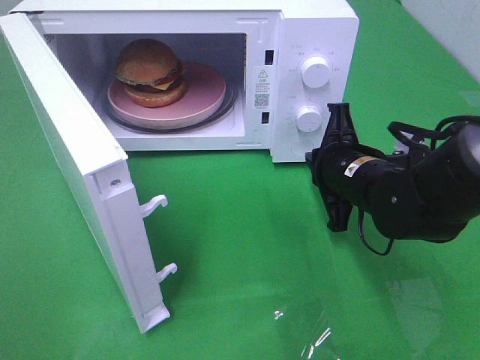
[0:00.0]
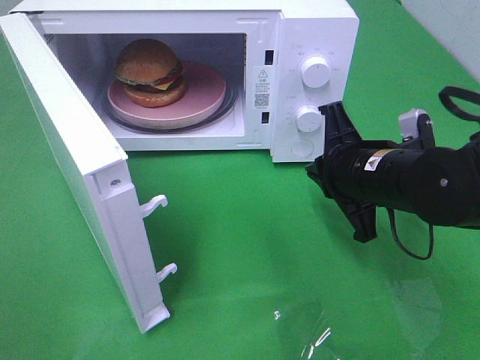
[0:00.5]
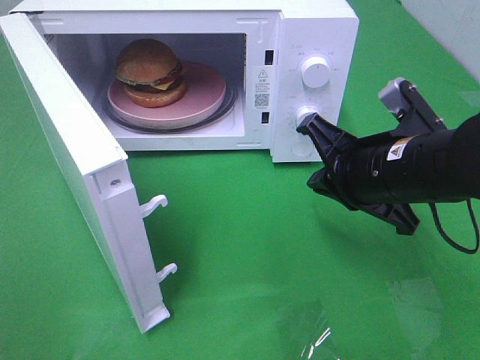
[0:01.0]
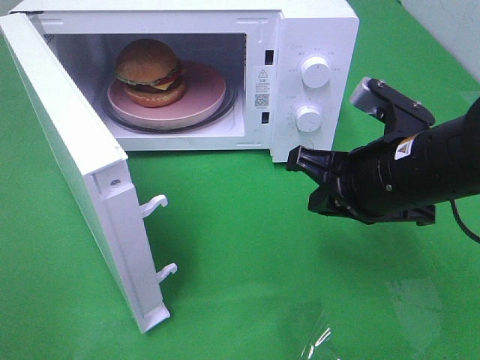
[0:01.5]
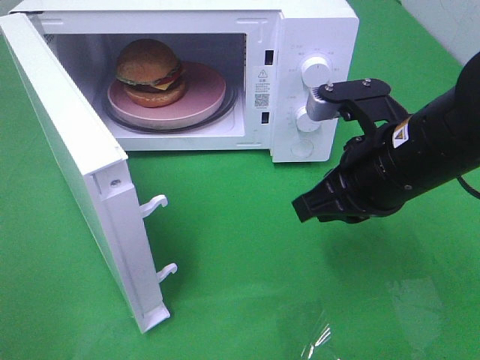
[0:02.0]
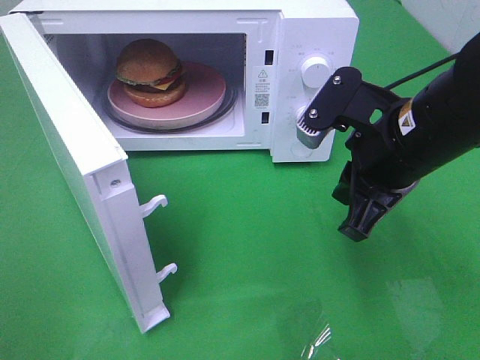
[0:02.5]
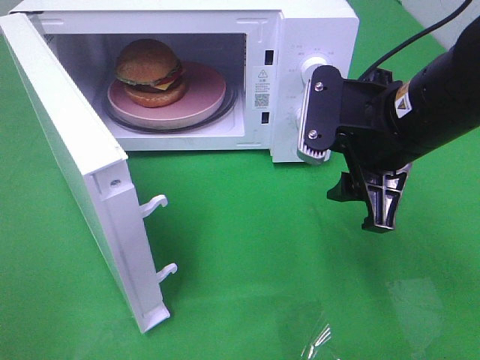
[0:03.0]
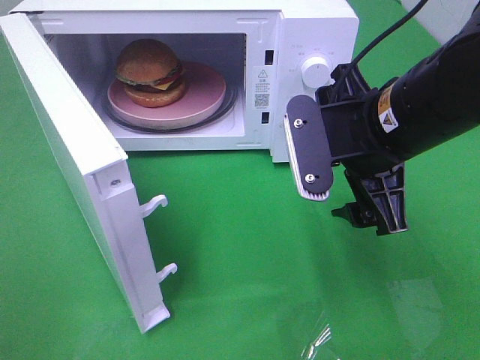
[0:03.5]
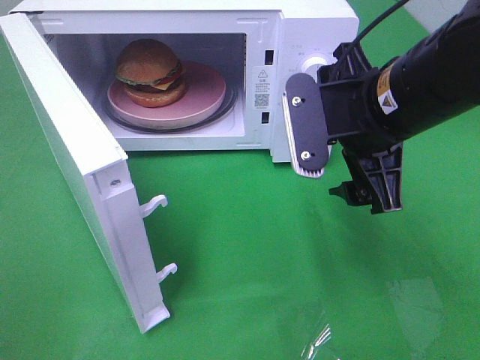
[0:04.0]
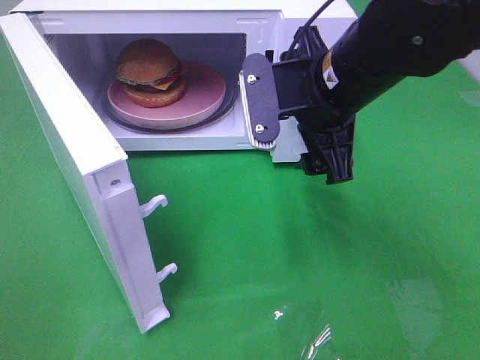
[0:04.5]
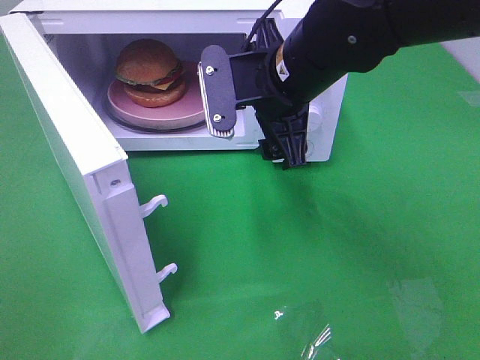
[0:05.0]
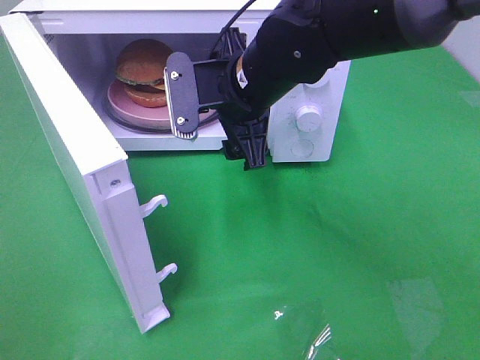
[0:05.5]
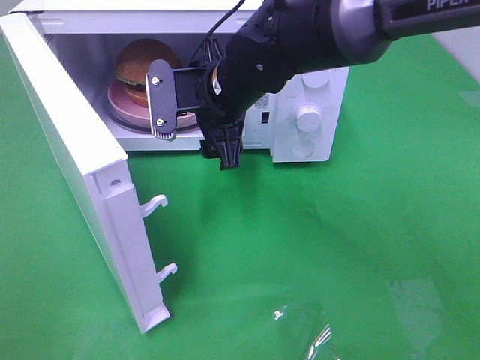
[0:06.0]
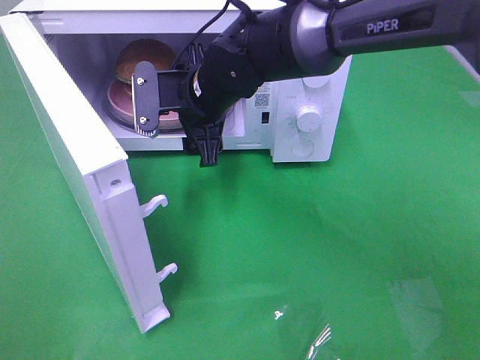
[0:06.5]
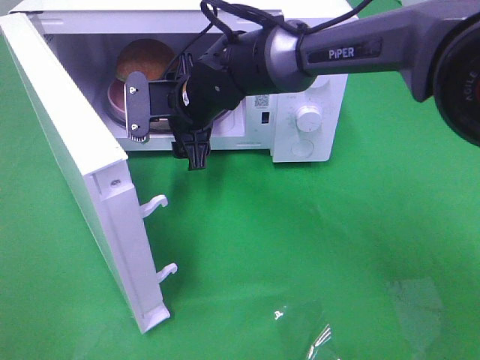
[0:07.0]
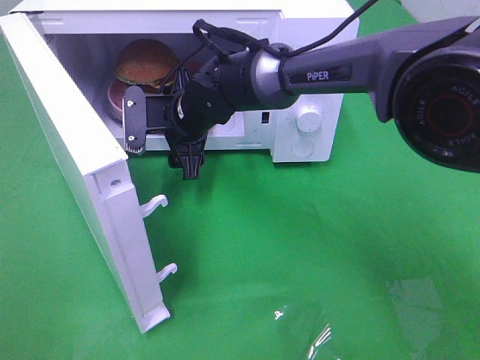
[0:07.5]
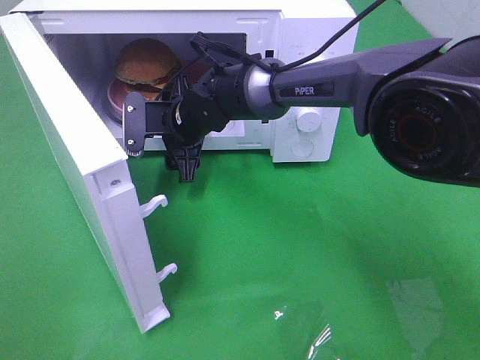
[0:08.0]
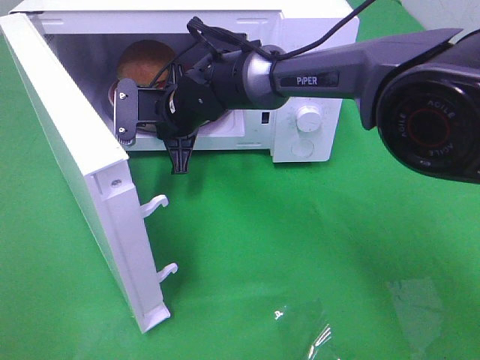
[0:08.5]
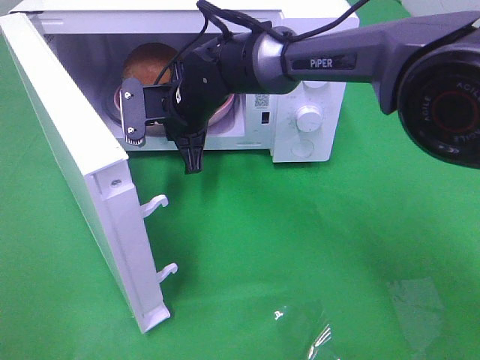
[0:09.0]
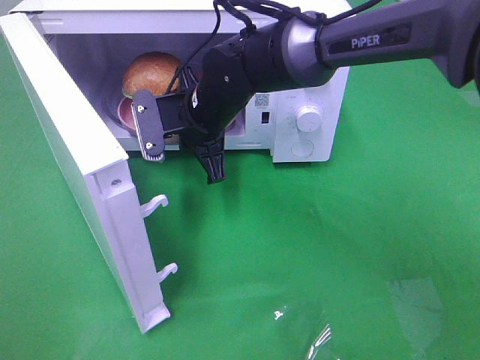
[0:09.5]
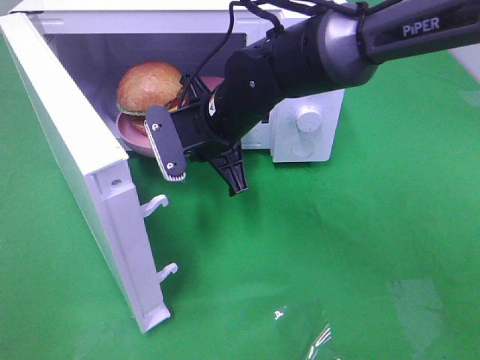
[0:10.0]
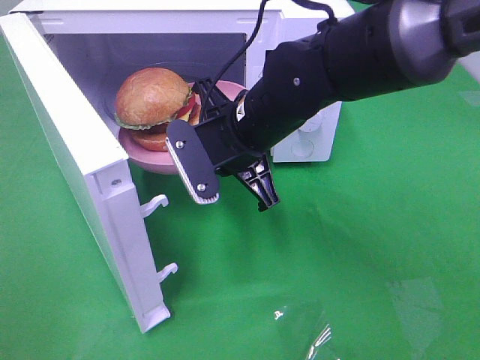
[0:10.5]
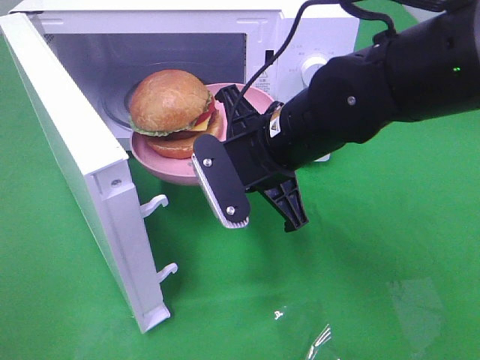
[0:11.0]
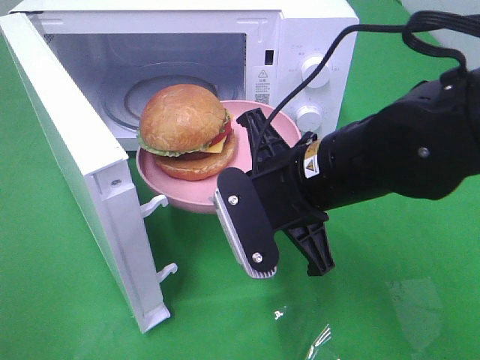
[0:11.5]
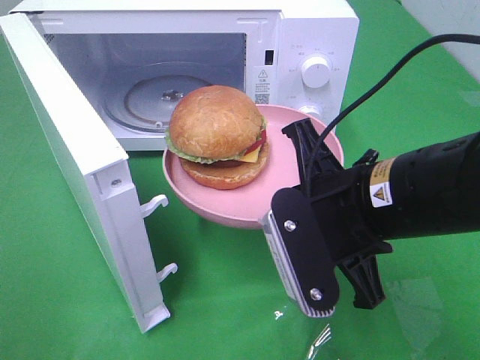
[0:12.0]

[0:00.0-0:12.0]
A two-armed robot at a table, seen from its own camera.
Task of the whole recording: Heat the burger.
Step, 0:00.5 to 0:08.5: Right hand: grab the plate with the hamburger.
0:00.0 to 0:02.0: The right gripper travels upward and backward by about 10 cm.
0:02.0 to 0:04.0: The right gripper changes place by some 5 cm, and opens.
0:04.0 to 0:06.0: The right gripper moves to the left and forward, about 15 cm.
0:06.0 to 0:08.0: The right gripper travels downward, forward and to the left by about 10 cm.
0:08.0 to 0:10.0: The right gripper heads backward, upward and to the right, covering roughly 10 cm, and closes up.
0:10.0 to 0:12.0: The right gripper is displaced backward and to the right by some 20 cm.

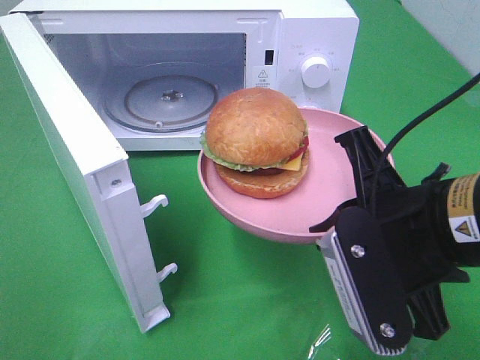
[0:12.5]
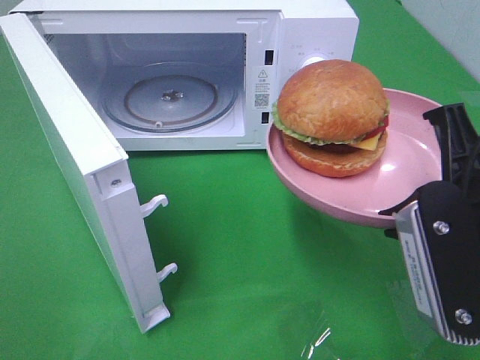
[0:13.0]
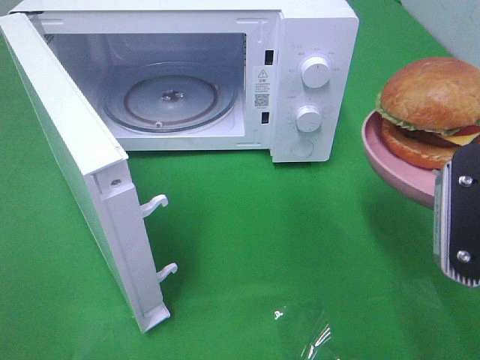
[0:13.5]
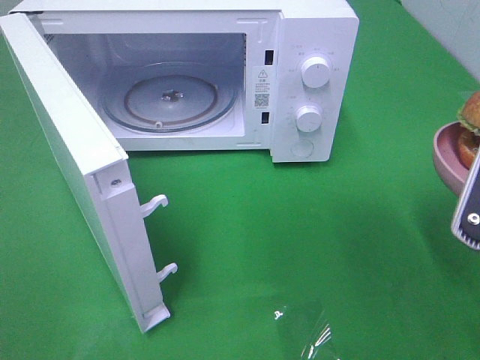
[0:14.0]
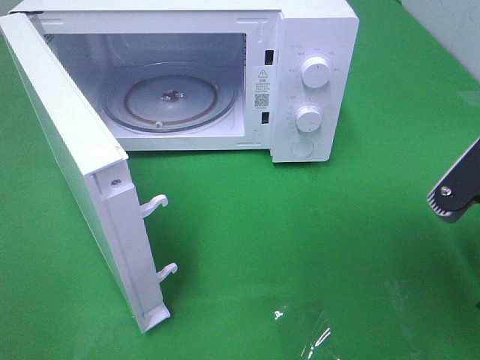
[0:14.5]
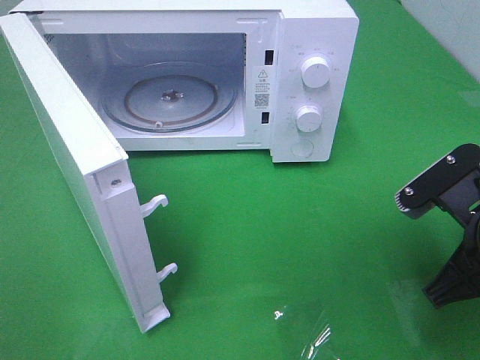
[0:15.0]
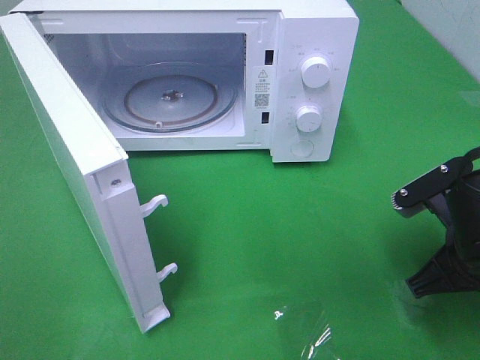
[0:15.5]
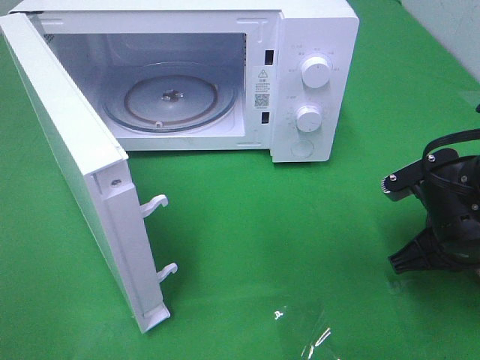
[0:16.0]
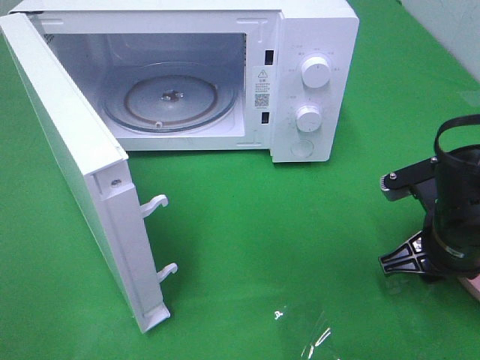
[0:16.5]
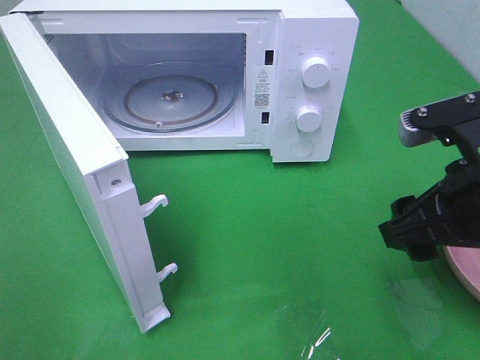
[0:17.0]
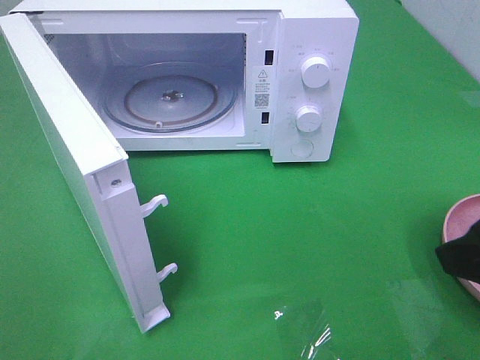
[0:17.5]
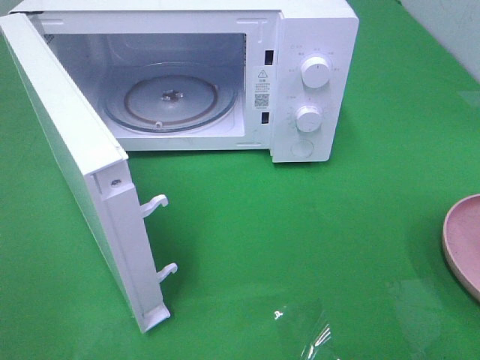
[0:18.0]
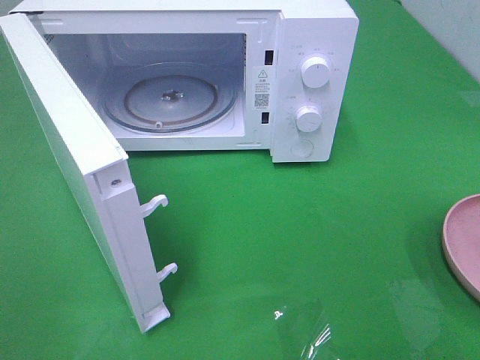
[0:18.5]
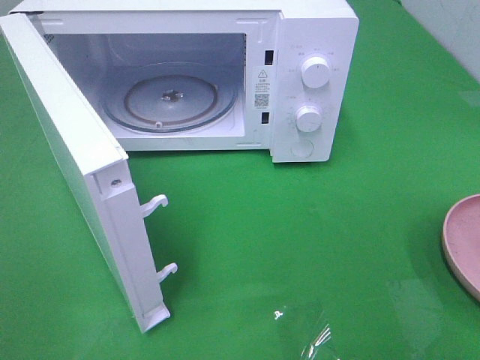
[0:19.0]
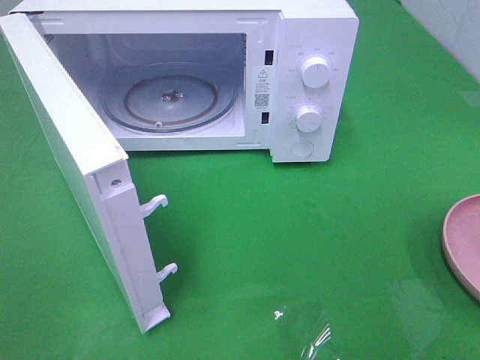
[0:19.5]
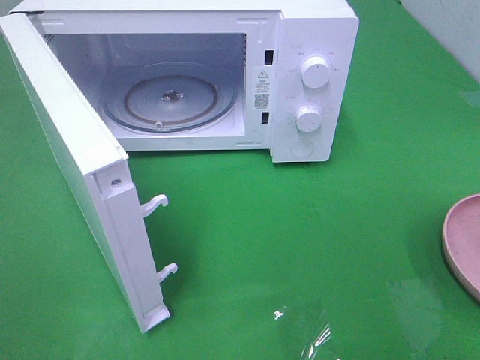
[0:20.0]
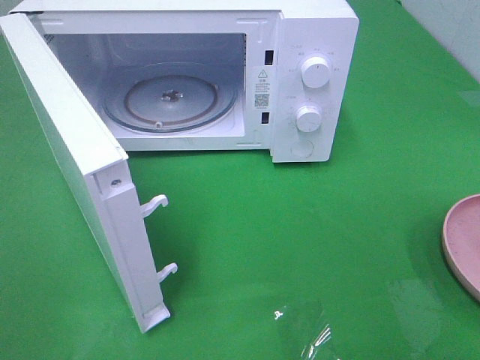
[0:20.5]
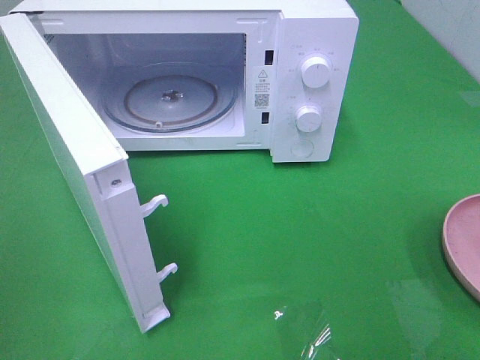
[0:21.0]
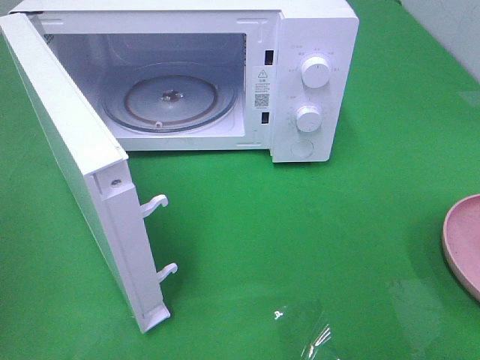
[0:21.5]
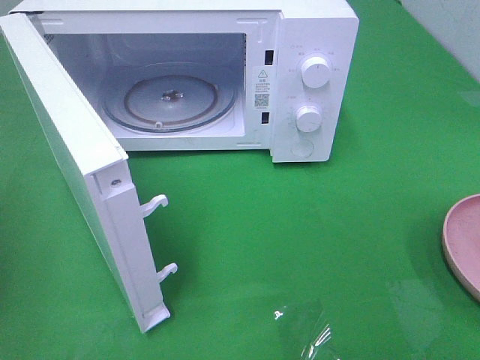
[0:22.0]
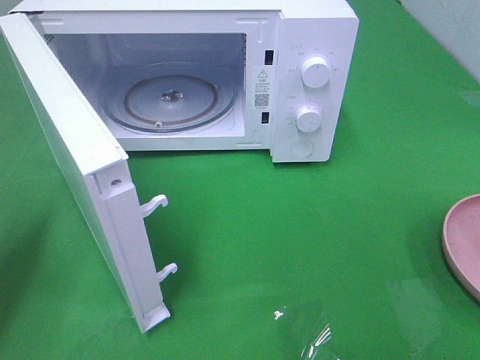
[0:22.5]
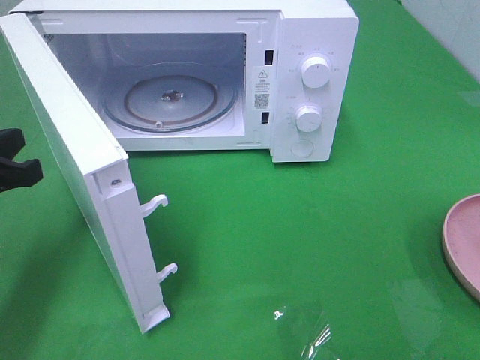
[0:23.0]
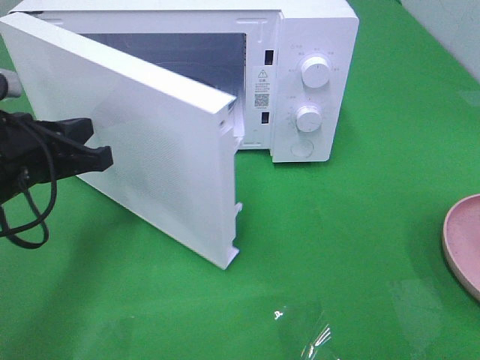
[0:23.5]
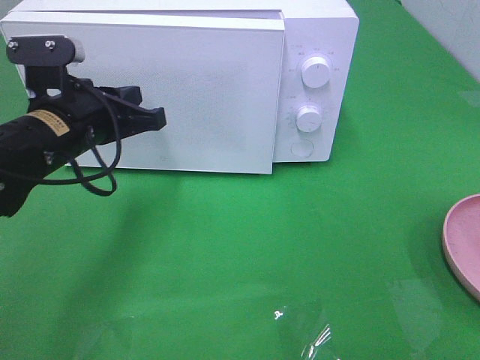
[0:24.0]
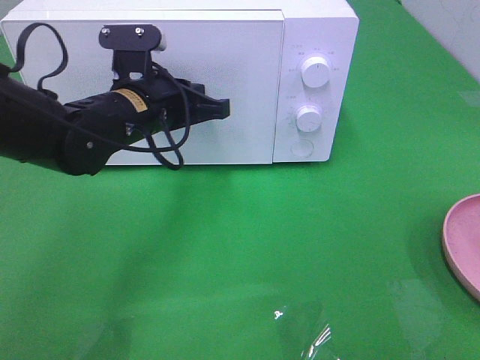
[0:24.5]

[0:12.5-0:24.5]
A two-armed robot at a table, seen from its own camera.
Task of the whole recording: Heat the burger.
Step, 0:12.5 to 0:17.0: Right hand: place the plate on the table.
0:12.5 to 0:14.5: The right gripper travels to the right by about 10 cm.
0:14.5 to 0:16.5: The right gripper is displaced downward and forward by roughly 10 cm, and opens.
0:16.5 to 0:18.5: The right gripper travels backward, upward and to the right by about 30 cm.
0:20.5 to 0:22.5: The left gripper moves forward and downward, about 25 cm, and closes up.
0:22.5 to 0:24.5: The left gripper is displaced to the right and forward by some 25 cm.

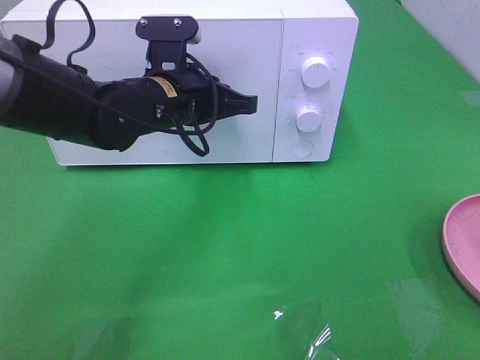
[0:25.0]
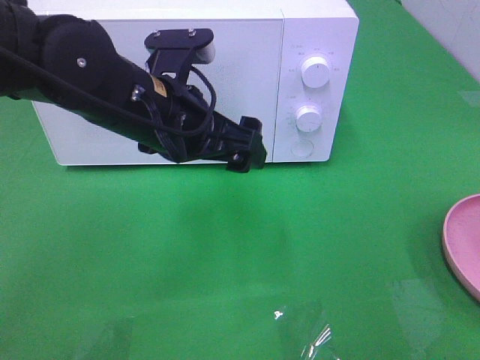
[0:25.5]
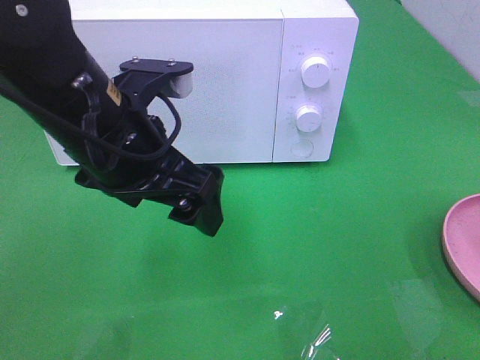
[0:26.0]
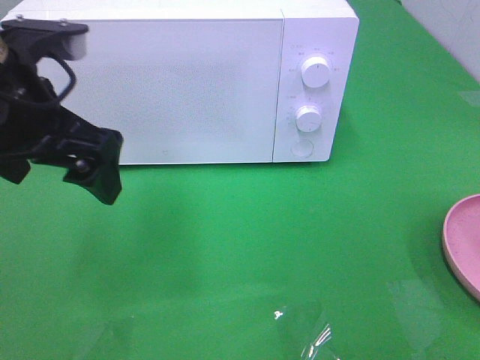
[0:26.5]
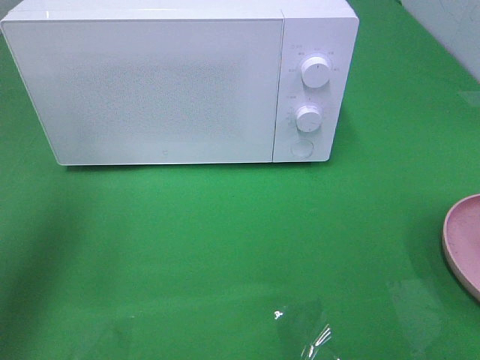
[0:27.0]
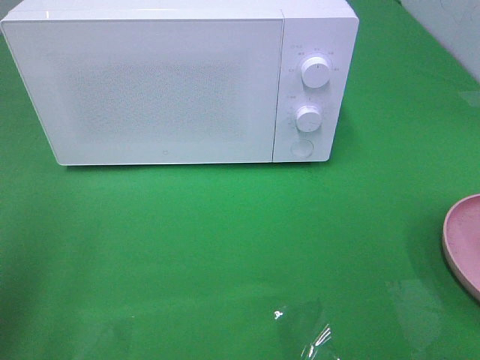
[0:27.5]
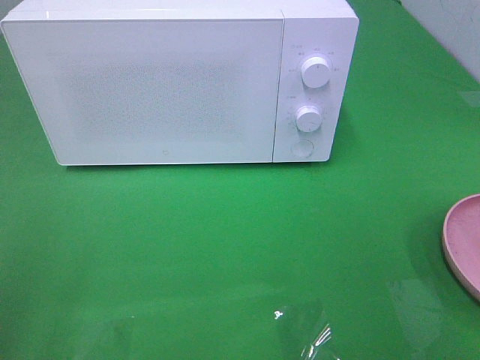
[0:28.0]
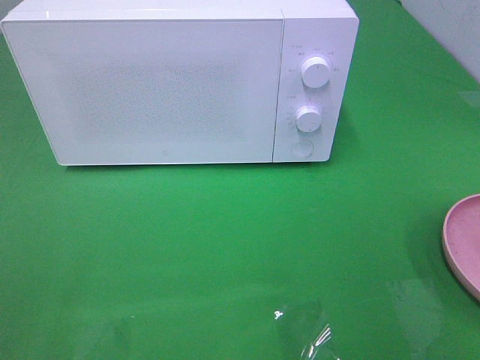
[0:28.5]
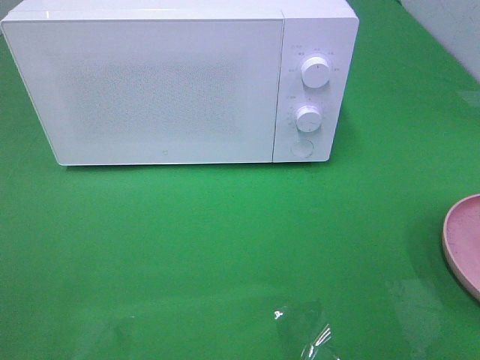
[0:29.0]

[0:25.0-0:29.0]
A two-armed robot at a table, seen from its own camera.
Task of the whole recording: Heat the burger.
0:25.0 to 0:27.0: The left gripper shifts some 30 cm to the left, upward and backward, and opens.
0:27.0 to 0:29.0: The left gripper goes some 25 cm backward.
